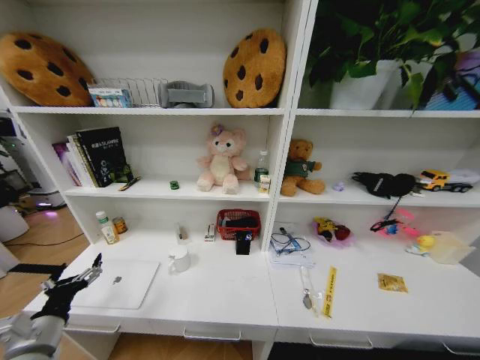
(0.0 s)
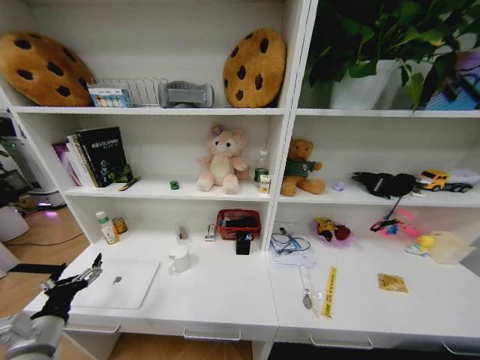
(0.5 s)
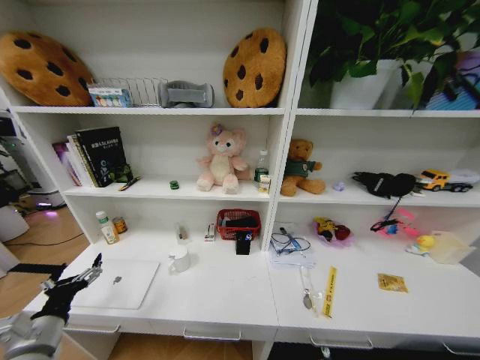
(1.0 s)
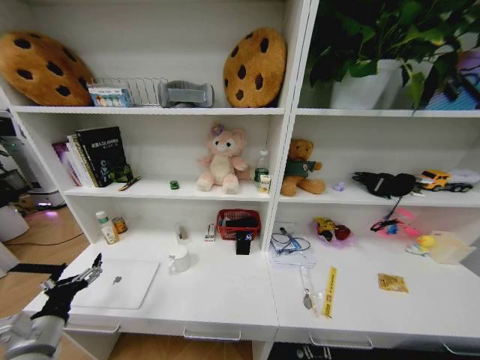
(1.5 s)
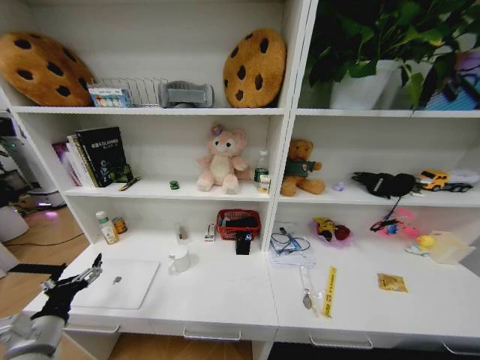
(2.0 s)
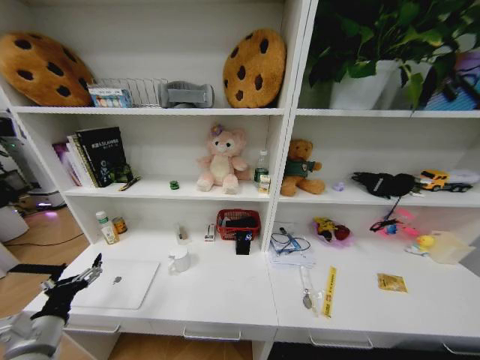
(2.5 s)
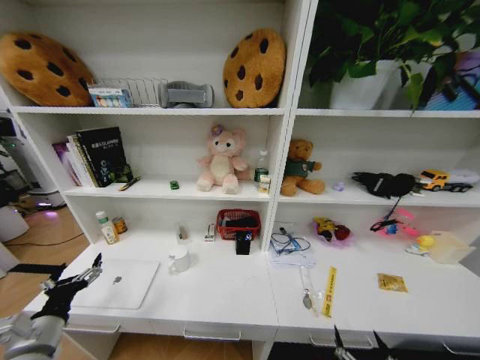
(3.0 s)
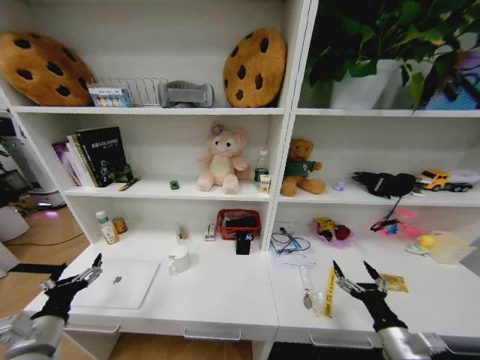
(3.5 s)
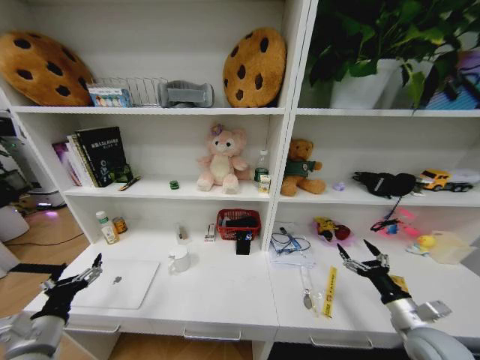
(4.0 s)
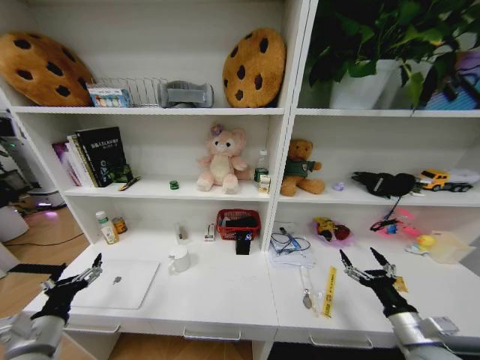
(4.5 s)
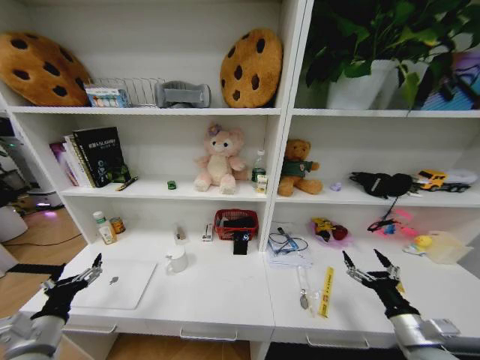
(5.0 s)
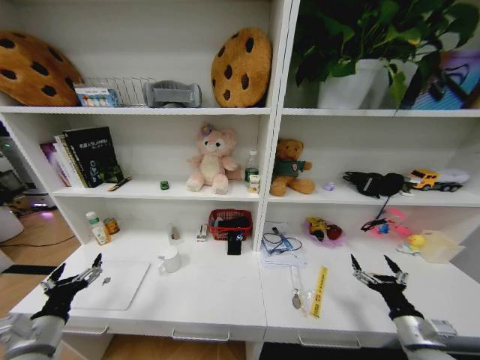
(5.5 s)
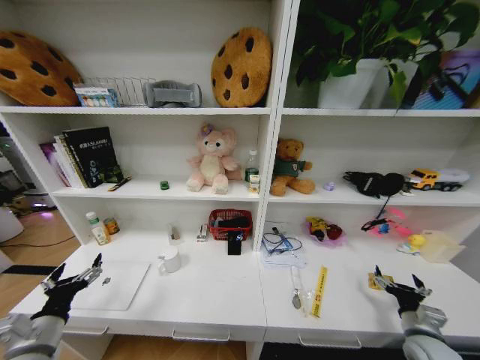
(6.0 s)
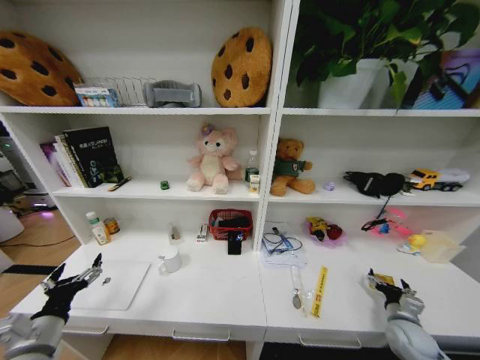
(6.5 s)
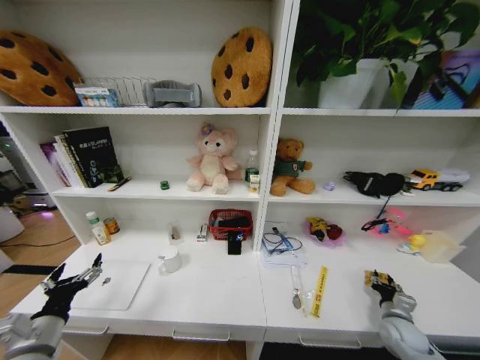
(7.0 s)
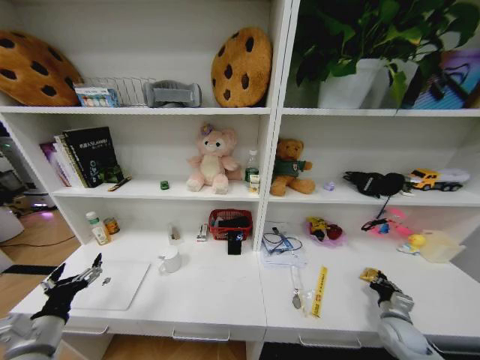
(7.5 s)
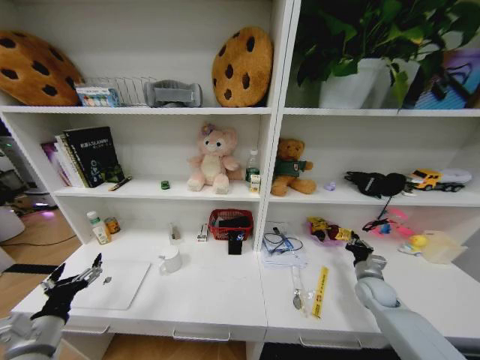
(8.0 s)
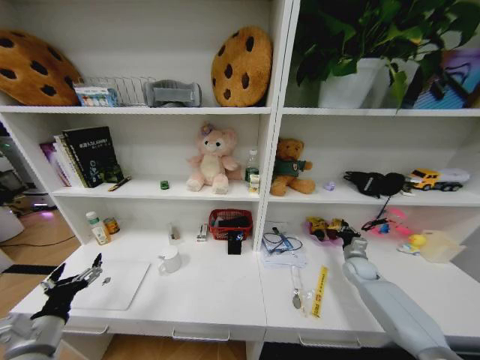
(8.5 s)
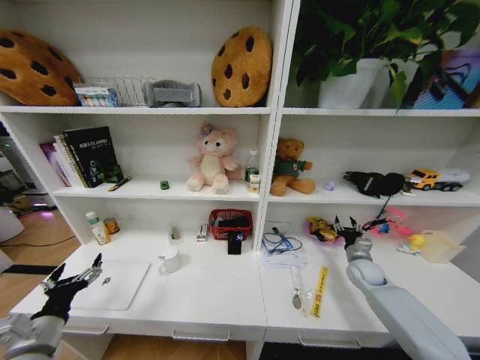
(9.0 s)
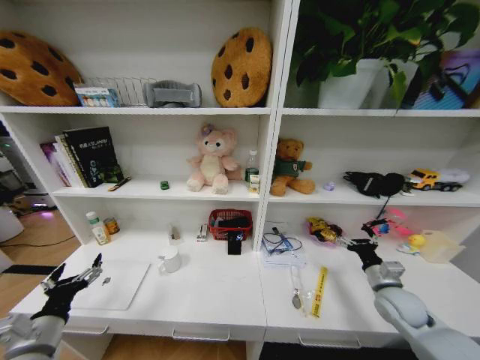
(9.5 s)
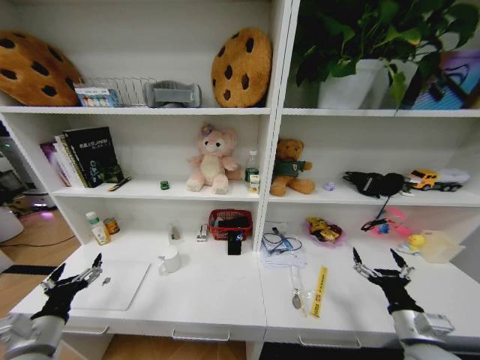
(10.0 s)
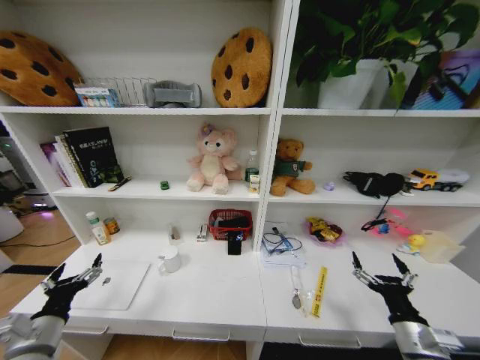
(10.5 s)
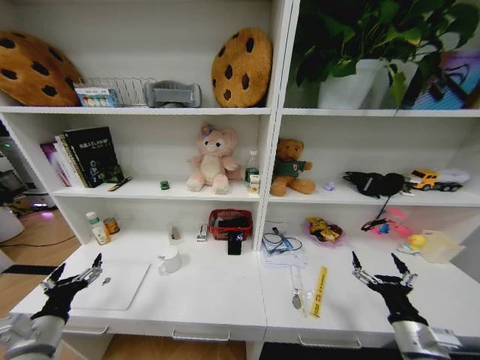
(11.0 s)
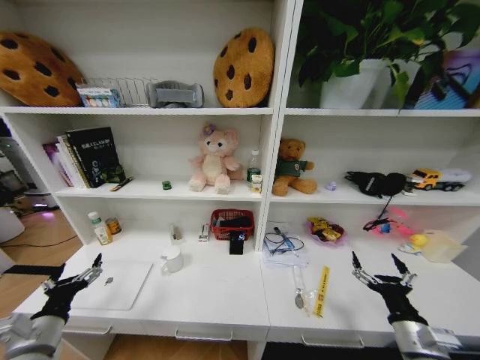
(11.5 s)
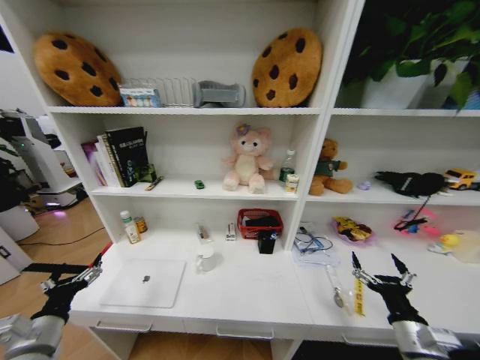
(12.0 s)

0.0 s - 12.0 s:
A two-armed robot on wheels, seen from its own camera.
Task of the whole recording: Organize the objects on the table.
2.0 s - 4.0 s: The right gripper moves upward, forward and to the right, some 40 cm.
4.0 s - 6.0 s: The right gripper is displaced downward by about 5 cm.
6.0 s - 8.0 s: The right gripper heads forward, covering roughly 15 cm, and closes up.
8.0 s - 10.0 s: The right gripper is displaced backward by about 20 cm, and opens its fingers.
